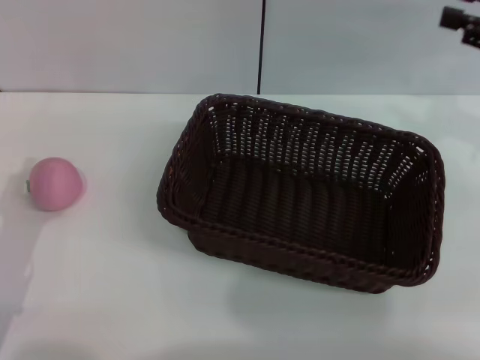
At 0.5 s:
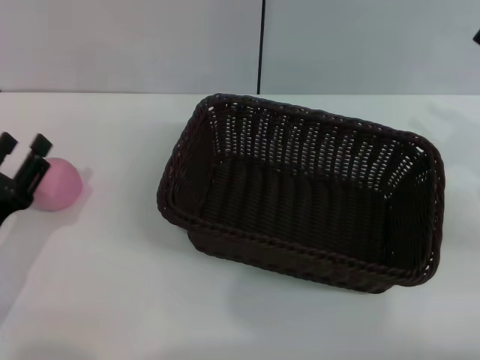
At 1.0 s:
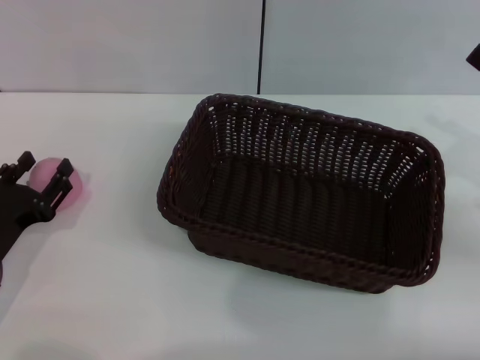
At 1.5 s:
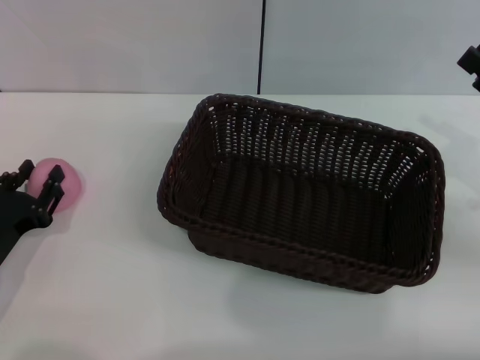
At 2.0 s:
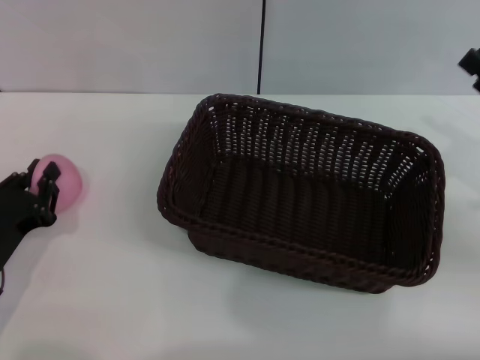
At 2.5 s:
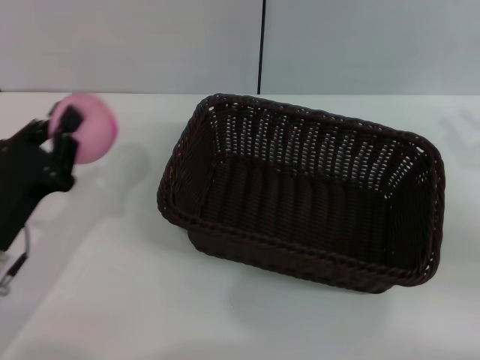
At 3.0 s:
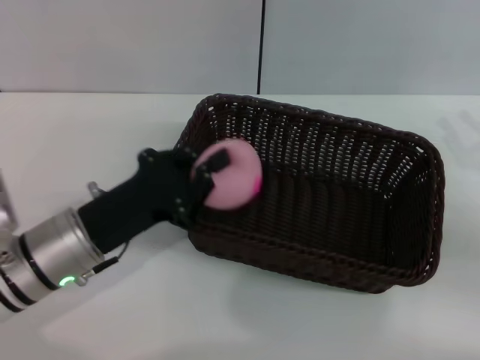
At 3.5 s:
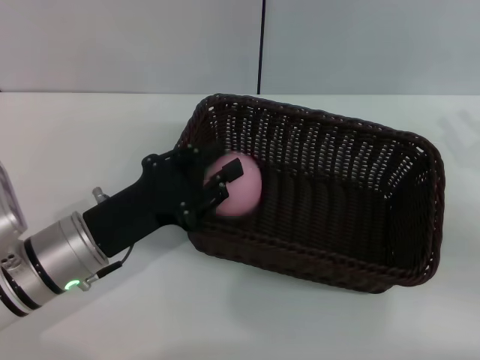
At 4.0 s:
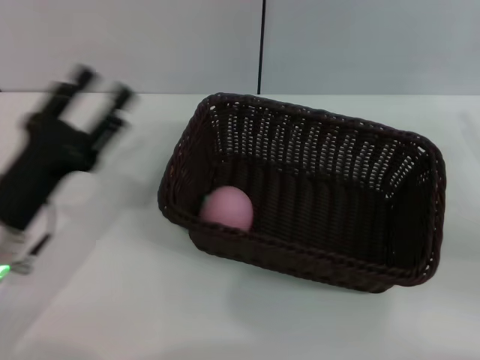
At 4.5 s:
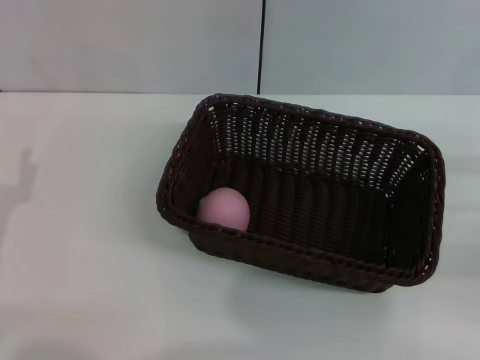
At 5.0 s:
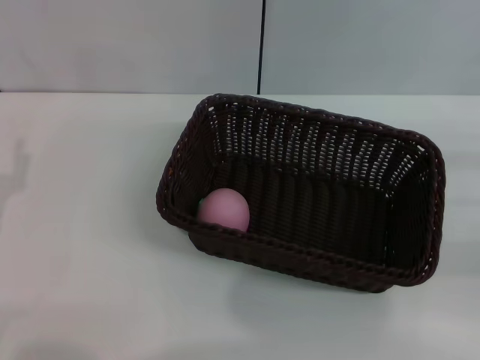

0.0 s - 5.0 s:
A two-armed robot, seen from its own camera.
Step, 0.0 s - 2.5 s: Pick up the peach with the left gripper.
Step, 3.0 s - 3.5 s: Place the peach into the basket with the left gripper.
0.0 s - 2.5 s: The left gripper closes up; the right gripper is displaced downward and backward by approximately 15 cm.
2.5 s - 5.0 s: The left gripper shifts by roughly 5 cm, and opens.
